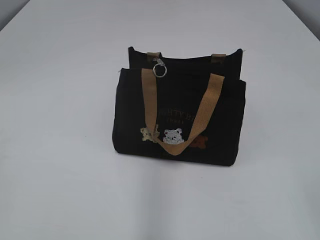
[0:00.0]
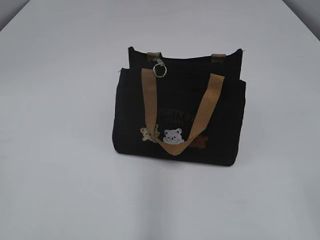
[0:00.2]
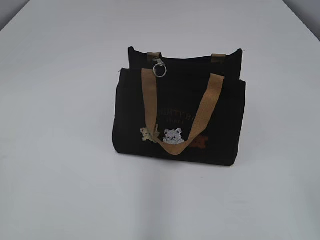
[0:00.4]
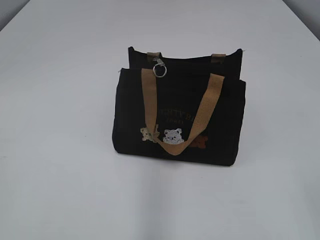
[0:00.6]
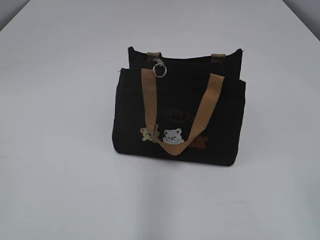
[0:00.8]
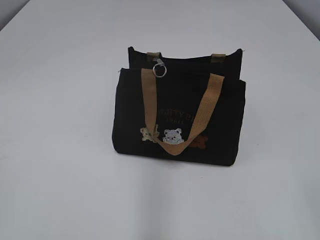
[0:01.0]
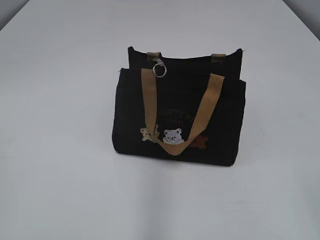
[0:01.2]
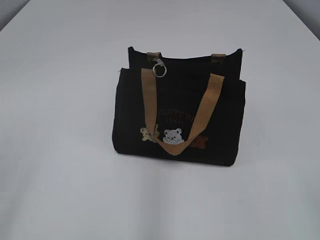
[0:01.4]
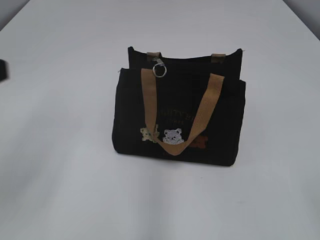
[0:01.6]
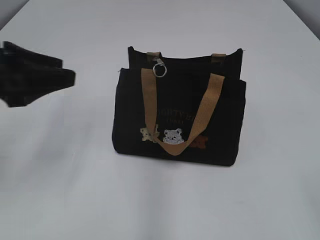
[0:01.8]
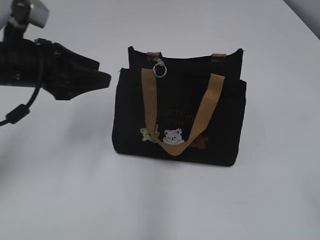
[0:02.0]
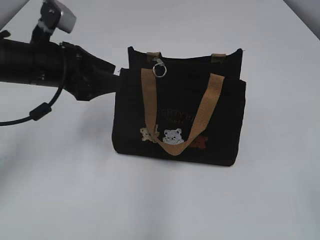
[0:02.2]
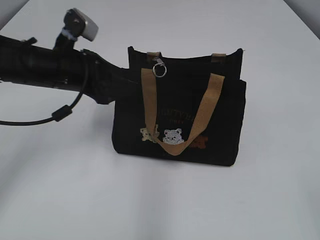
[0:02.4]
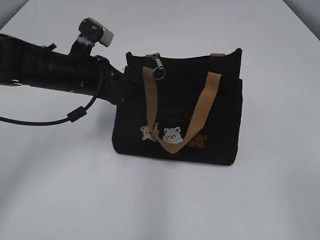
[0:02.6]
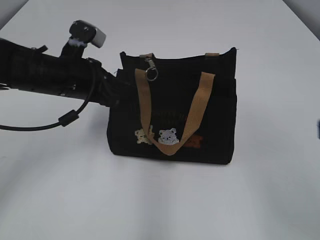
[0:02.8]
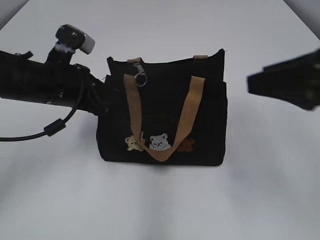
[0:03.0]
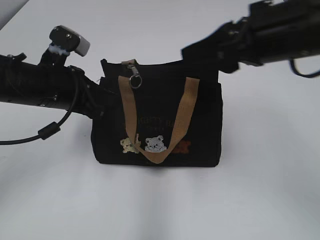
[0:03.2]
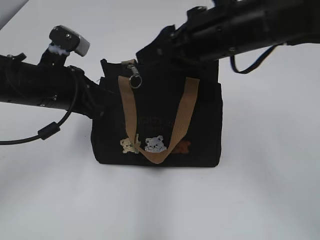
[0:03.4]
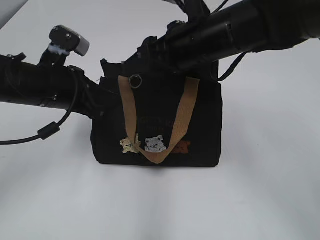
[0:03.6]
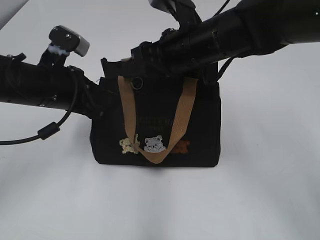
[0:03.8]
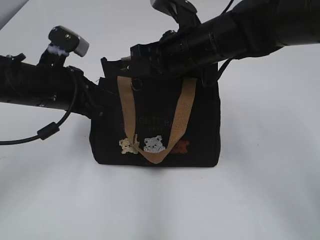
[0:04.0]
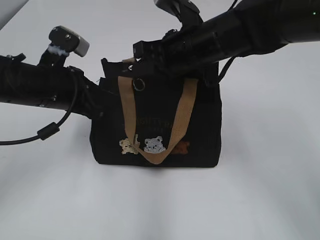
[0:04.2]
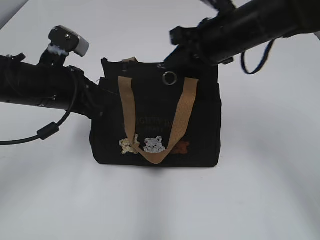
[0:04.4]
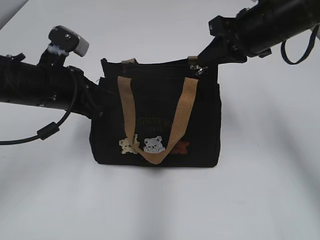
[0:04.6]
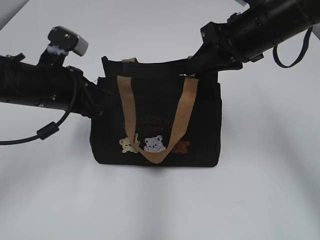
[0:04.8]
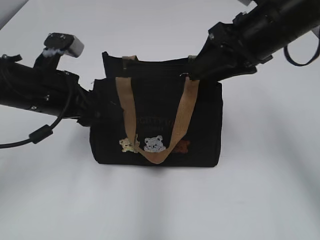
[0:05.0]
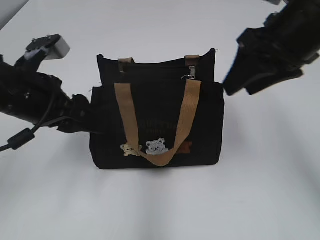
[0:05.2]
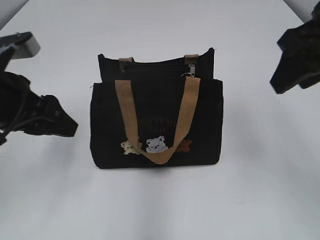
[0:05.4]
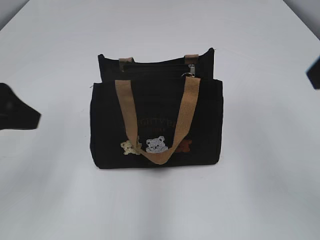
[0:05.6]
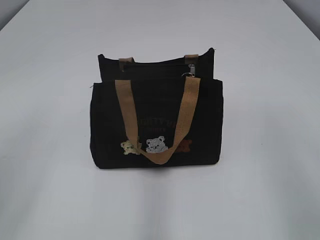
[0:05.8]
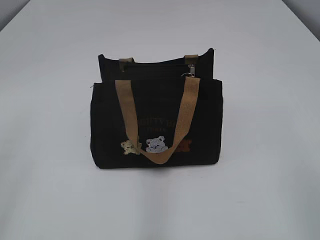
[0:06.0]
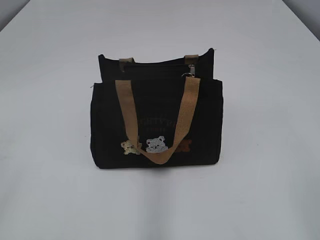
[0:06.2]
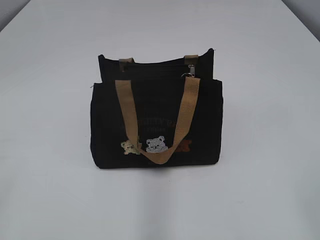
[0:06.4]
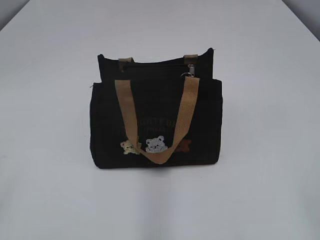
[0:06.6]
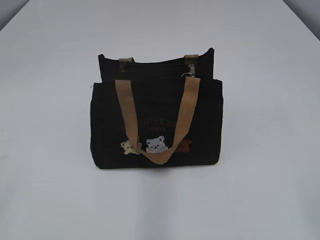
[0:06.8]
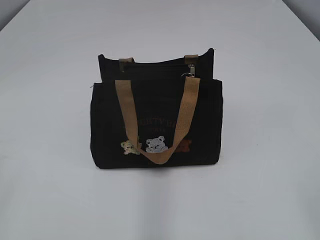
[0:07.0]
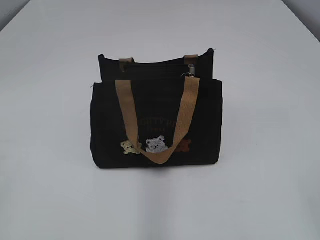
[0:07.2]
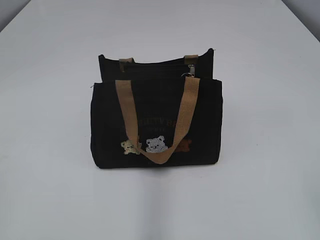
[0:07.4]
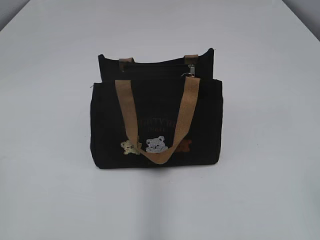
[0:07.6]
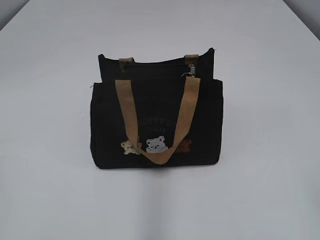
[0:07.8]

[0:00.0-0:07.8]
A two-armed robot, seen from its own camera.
Step, 0.0 to 4.8 s: Pull open the zipper with your right hand.
1.6 to 3.2 s: The right gripper is displaced forward and to the left by about 30 cm, while the left gripper goes approximately 20 cm forward, downward and to the right, and closes up.
3.2 to 4.6 s: The right gripper heads forward, covering approximately 10 cm, reaches about 10 cm to the left, then returns, and closes up.
4.6 to 6.2 s: The left gripper moves backward, to the left and upward, roughly 35 cm, and opens its fingers; the right gripper travels backward by approximately 35 cm, and opens its fingers.

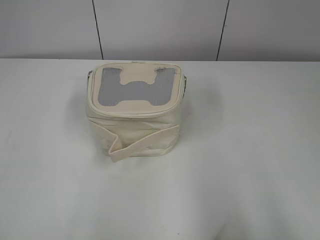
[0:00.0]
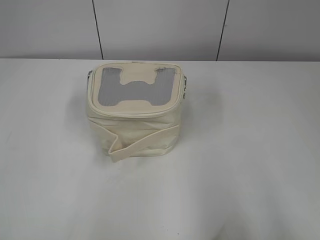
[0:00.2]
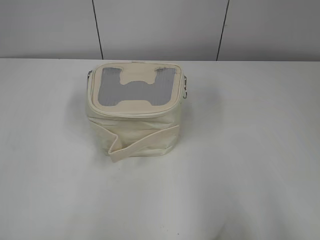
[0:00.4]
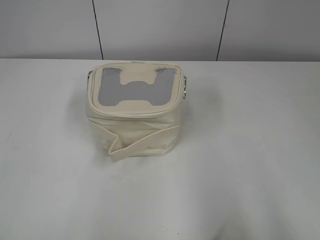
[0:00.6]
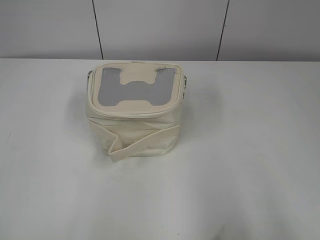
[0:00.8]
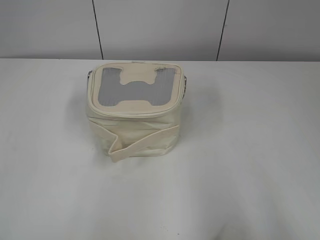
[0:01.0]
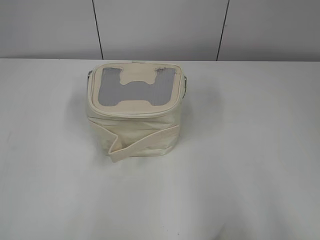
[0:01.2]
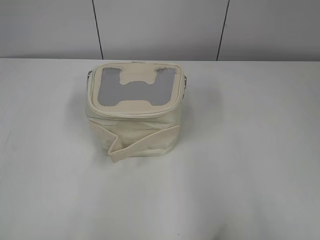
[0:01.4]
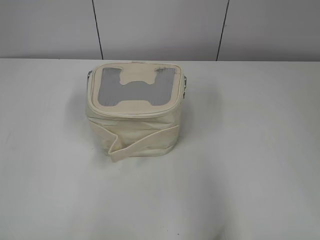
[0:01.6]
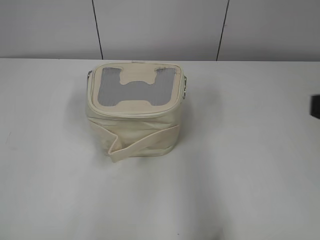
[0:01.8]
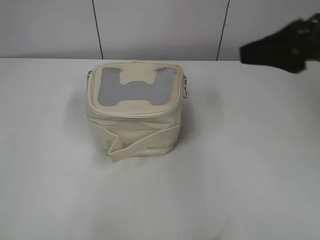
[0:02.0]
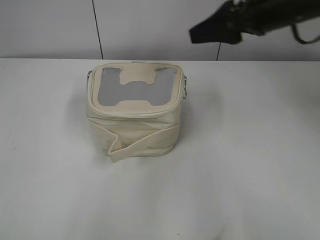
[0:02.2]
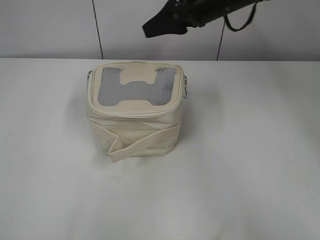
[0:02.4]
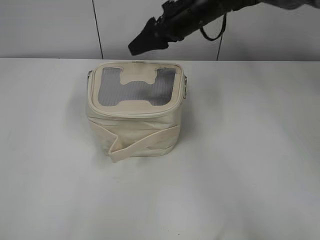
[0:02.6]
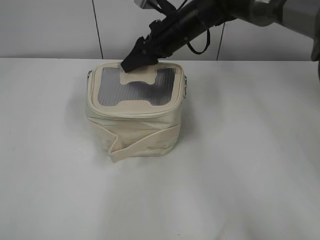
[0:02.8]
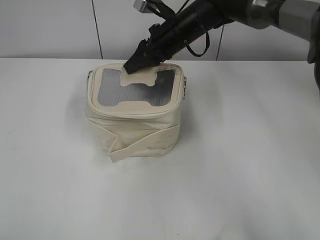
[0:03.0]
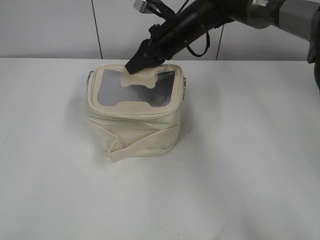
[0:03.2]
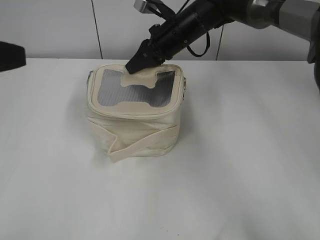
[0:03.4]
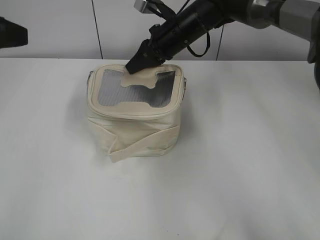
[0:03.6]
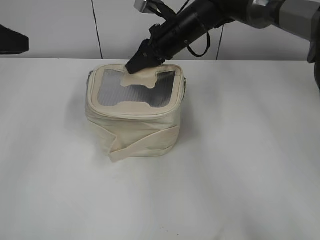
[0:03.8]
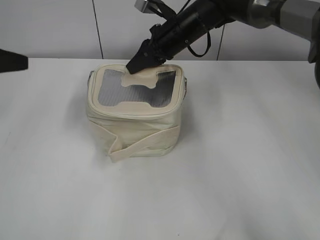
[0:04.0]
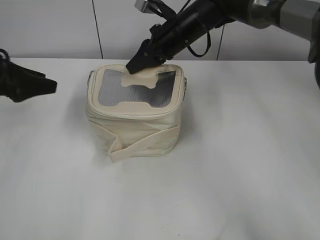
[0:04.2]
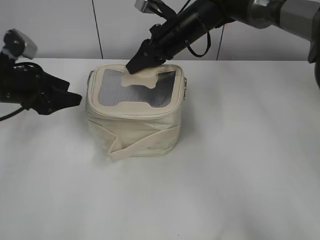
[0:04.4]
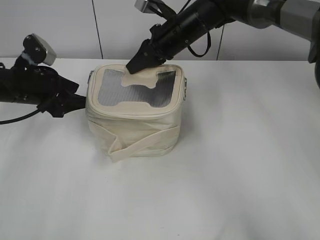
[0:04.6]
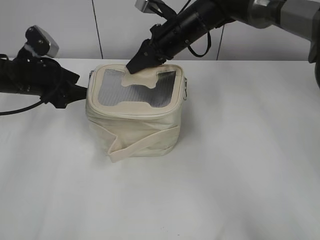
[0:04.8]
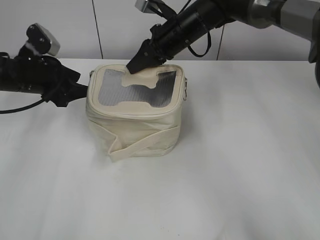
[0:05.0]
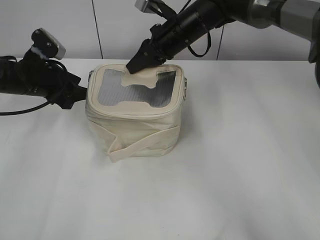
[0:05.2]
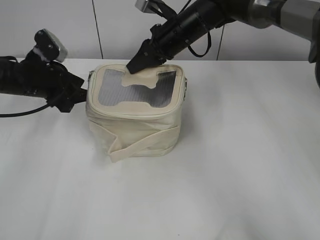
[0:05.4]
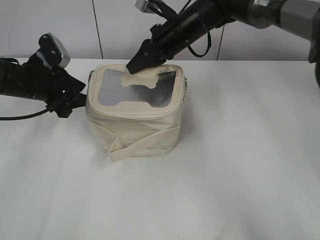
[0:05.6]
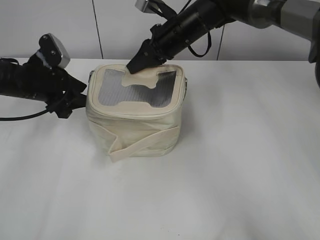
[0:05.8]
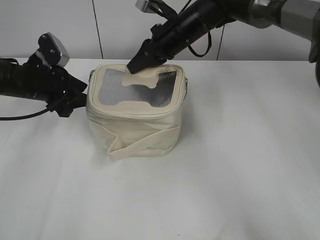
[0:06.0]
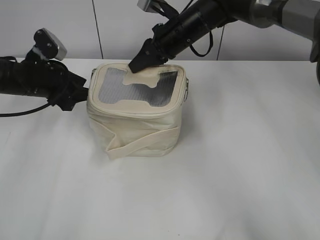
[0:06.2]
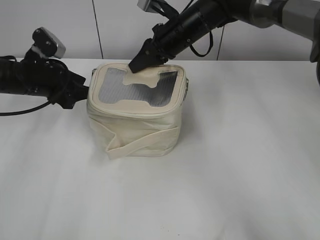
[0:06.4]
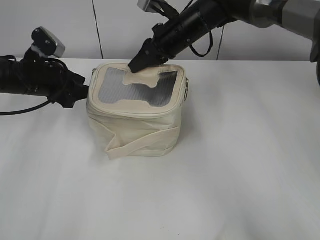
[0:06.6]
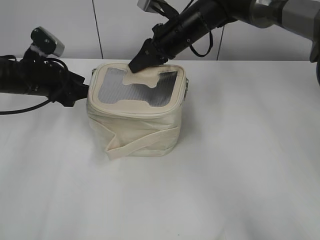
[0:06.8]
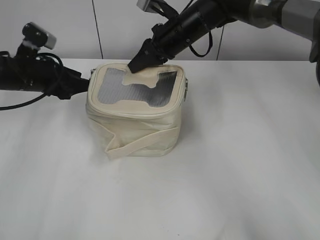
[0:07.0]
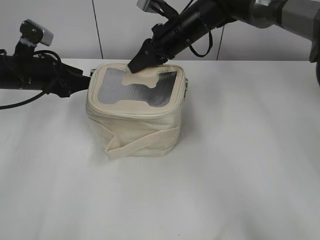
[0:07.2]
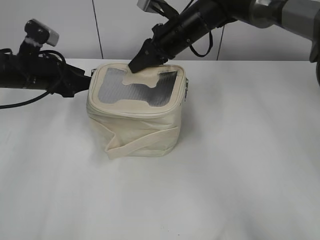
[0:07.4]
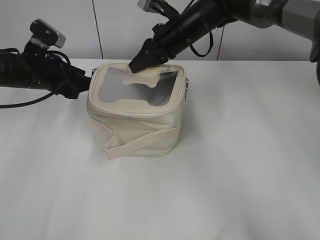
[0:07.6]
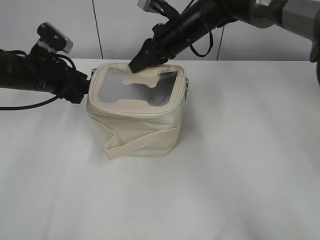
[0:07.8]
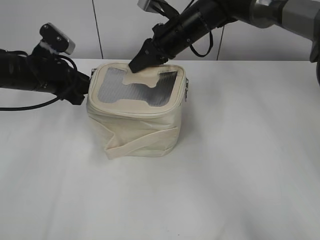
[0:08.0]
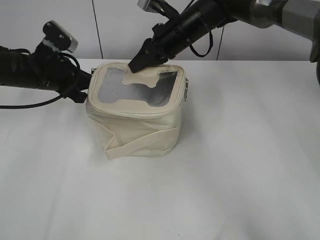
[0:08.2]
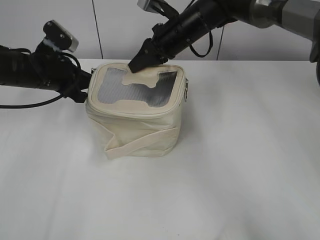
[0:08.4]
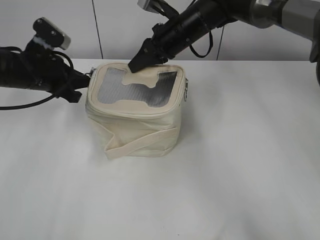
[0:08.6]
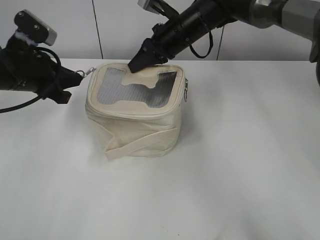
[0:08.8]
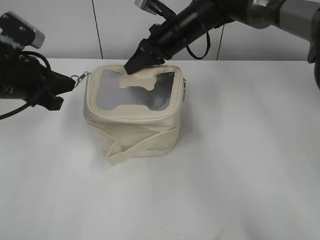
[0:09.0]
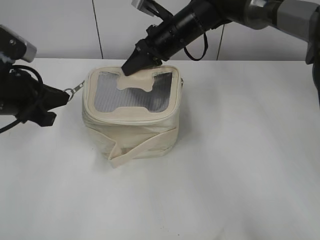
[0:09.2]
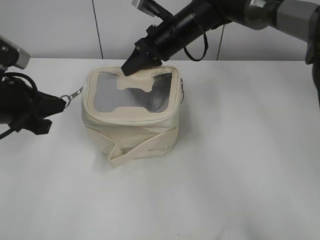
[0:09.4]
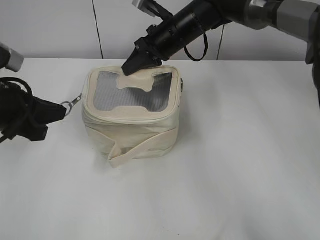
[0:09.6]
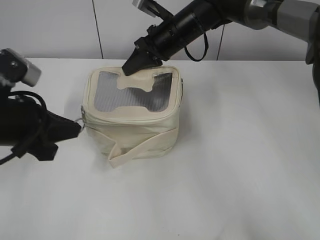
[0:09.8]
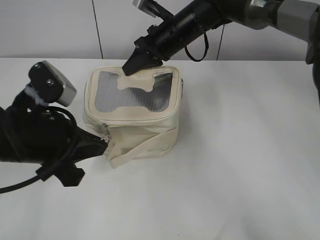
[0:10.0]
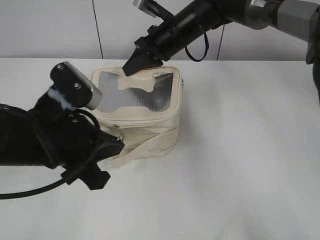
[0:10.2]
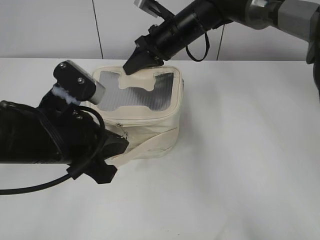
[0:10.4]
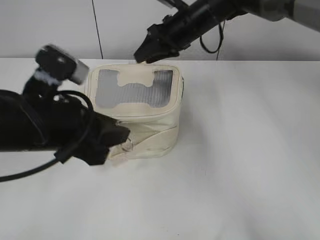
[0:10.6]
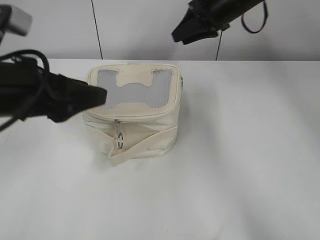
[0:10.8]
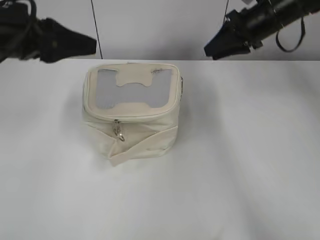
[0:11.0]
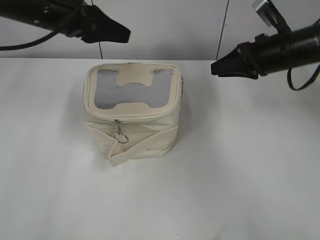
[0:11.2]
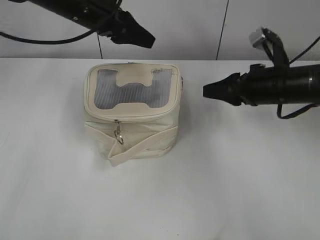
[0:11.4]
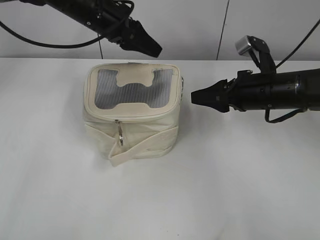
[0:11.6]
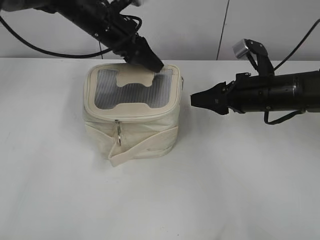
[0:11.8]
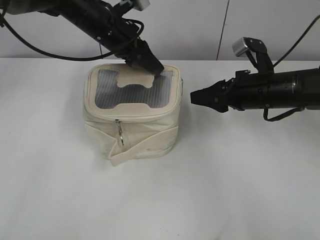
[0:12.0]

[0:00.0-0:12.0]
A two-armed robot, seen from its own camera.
Step, 0.0 to 10.4 s: Zip up the bag with your left hand.
1.6 to 3.0 s: The right gripper goes some 50 cm forward and to the left, and closes, while the left gripper heads forward, covering some 5 cm.
3.0 to 4.4 s: The right gripper closes up. Meanwhile the left gripper is displaced forward and downward by about 35 cm, and opens up.
4.4 to 7.6 s: The grippers move only a little.
7.6 to 9.0 s: The left gripper travels backward by approximately 5 cm, and closes.
9.0 to 10.4 s: The left gripper goes some 15 cm backward and to the right.
10.4 to 12.0 s: The right gripper moves to the right and backward, approximately 20 cm, and opens its fingers. Meanwhile the left gripper shifts approximately 25 cm forward, and opens.

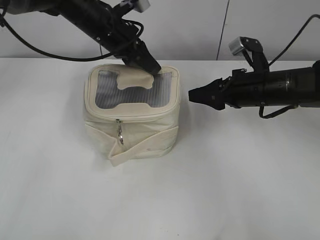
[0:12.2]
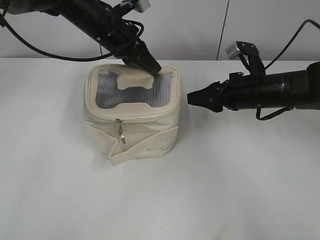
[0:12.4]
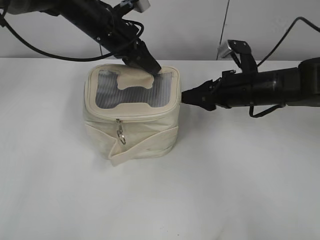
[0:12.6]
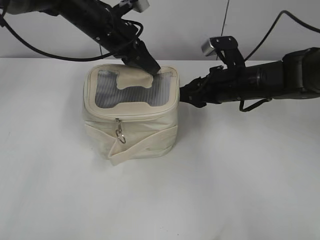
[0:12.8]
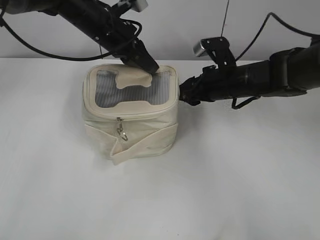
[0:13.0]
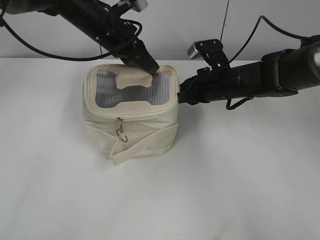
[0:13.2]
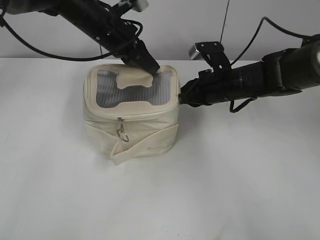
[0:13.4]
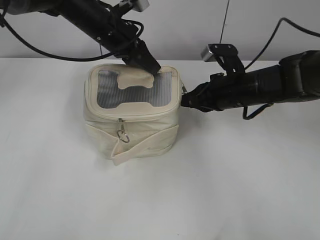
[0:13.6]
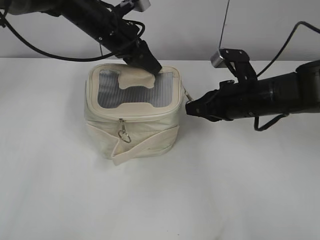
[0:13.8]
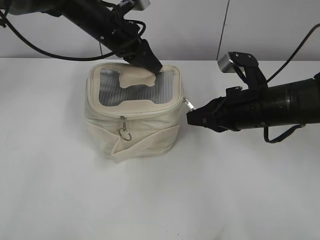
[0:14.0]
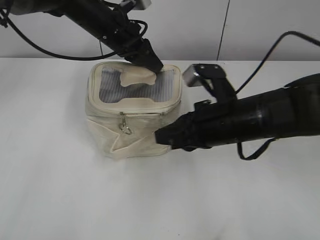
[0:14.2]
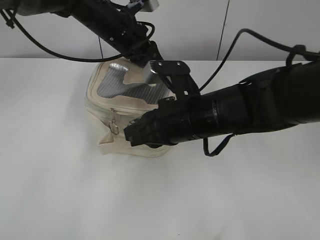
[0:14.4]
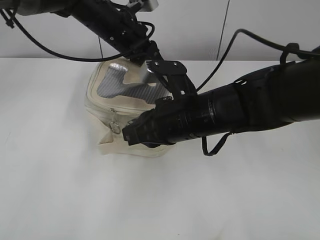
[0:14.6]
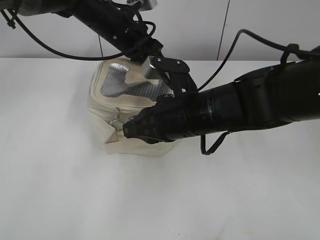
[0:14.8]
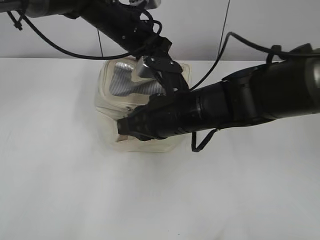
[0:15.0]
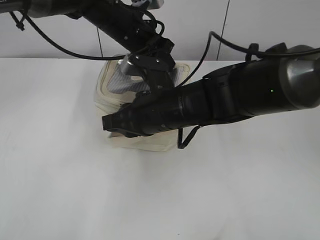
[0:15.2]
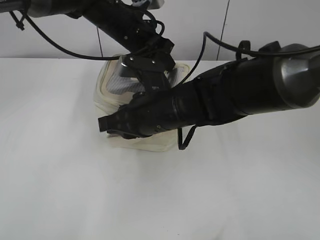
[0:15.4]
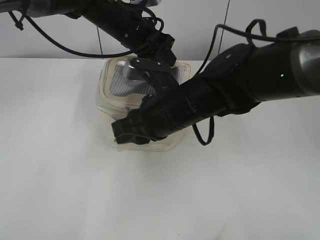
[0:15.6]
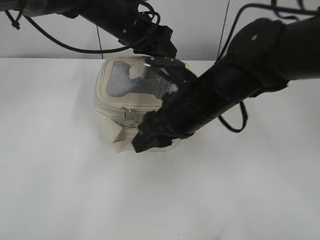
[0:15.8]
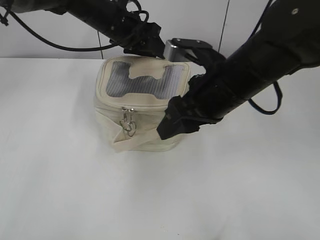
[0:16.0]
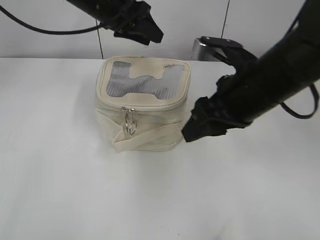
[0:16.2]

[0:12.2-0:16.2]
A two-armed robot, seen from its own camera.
Step, 12.2 to 15.4 s: Zip up the bag with your right hand.
Step, 15.8 to 16.0 s: Hold the bag with your left hand.
12.2 to 13.6 s: The right gripper closes its fingers.
13.6 to 14.8 s: The right gripper is displaced backward and to the left by roughly 15 cm.
14.8 to 16.2 s: The right gripper travels to the right and upward by about 10 cm, and opens up; the left gripper ends up some 5 cm from where it was, and opens up.
